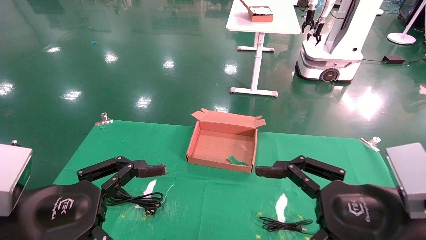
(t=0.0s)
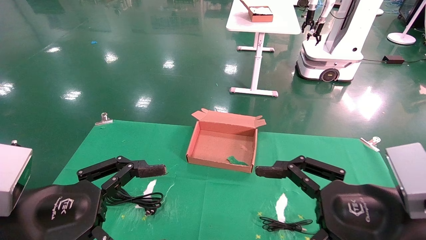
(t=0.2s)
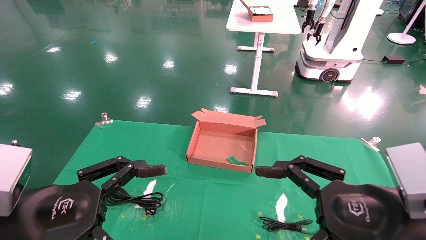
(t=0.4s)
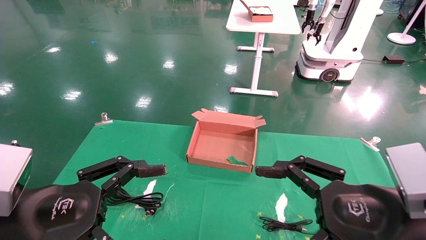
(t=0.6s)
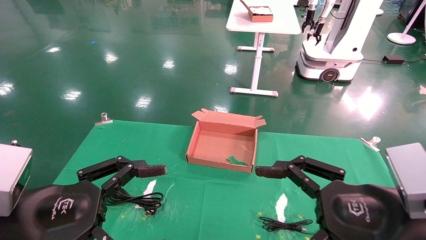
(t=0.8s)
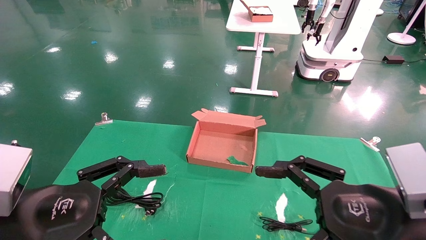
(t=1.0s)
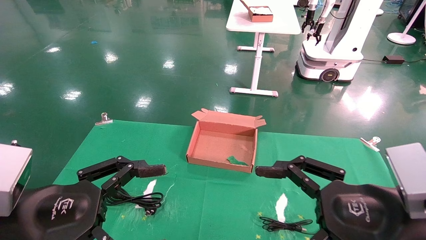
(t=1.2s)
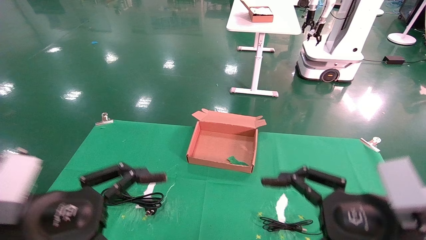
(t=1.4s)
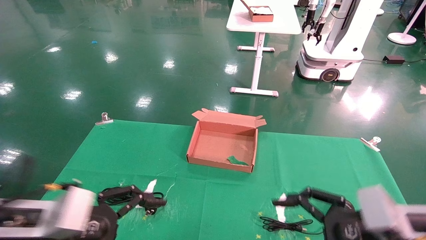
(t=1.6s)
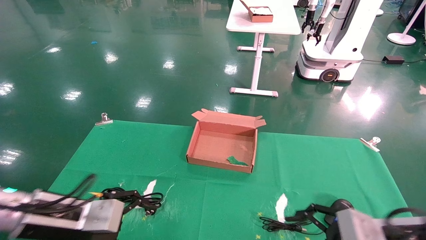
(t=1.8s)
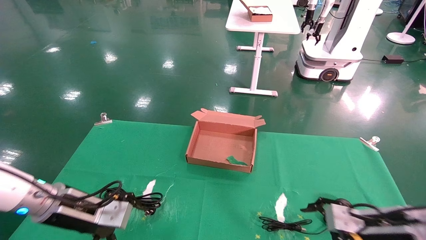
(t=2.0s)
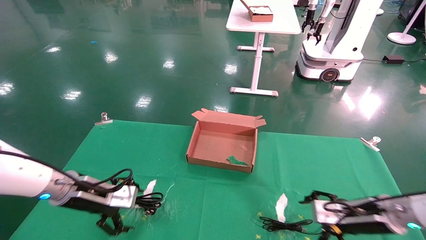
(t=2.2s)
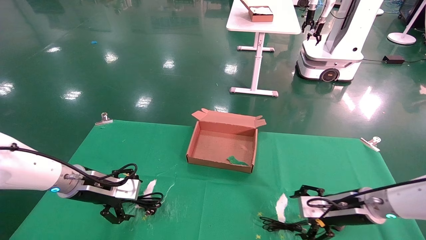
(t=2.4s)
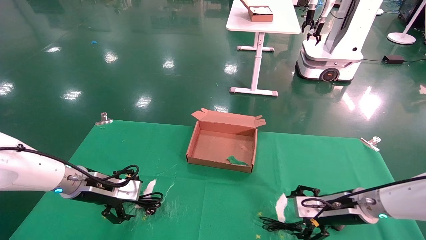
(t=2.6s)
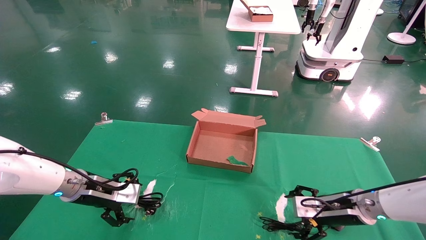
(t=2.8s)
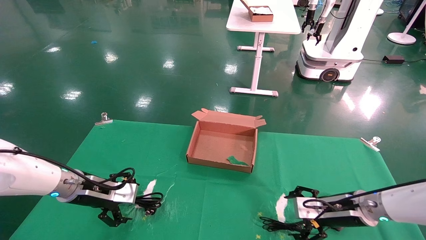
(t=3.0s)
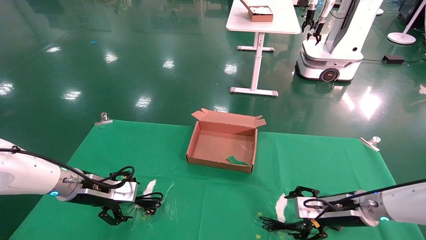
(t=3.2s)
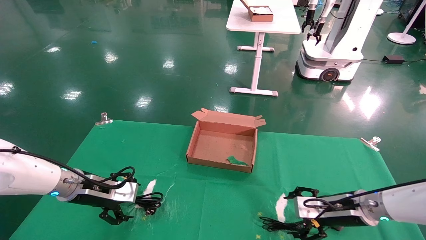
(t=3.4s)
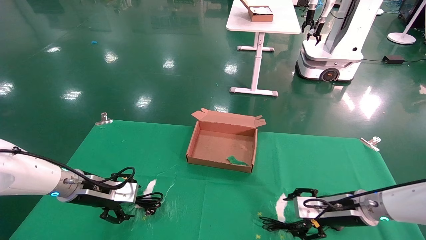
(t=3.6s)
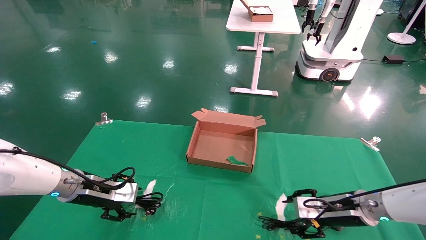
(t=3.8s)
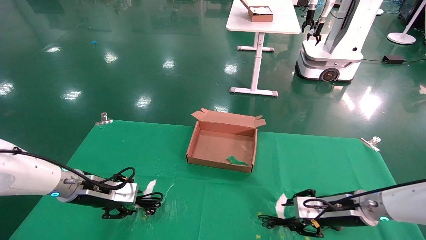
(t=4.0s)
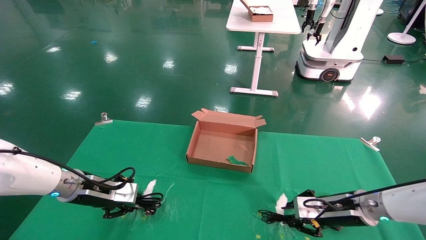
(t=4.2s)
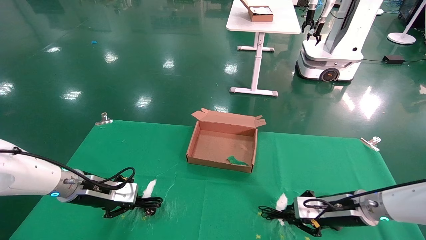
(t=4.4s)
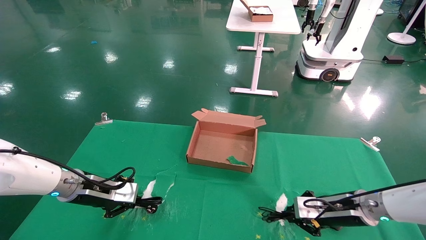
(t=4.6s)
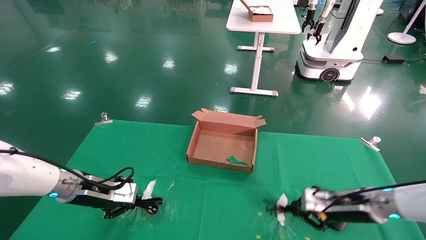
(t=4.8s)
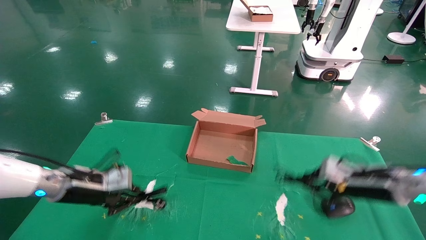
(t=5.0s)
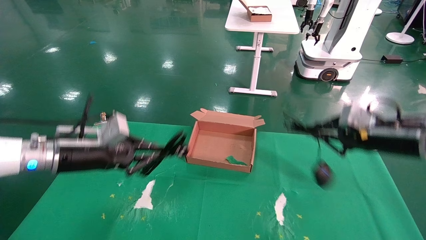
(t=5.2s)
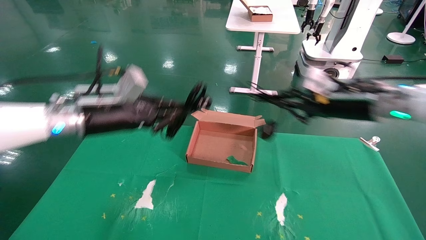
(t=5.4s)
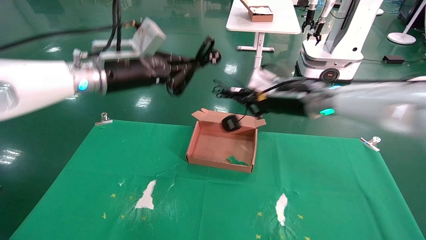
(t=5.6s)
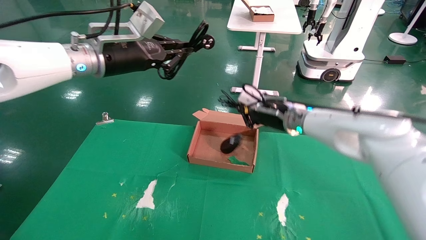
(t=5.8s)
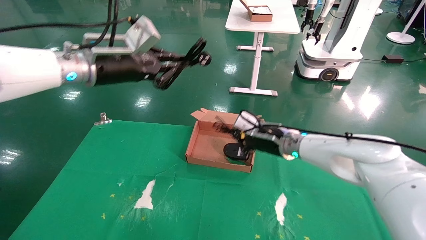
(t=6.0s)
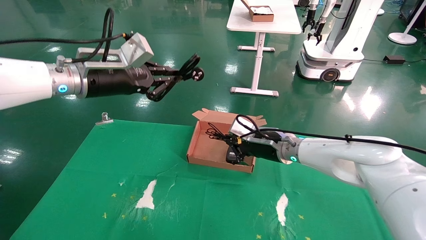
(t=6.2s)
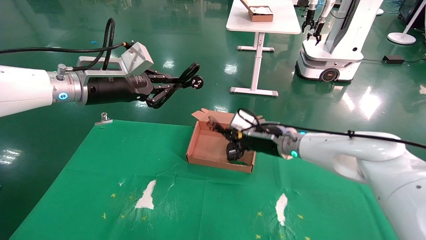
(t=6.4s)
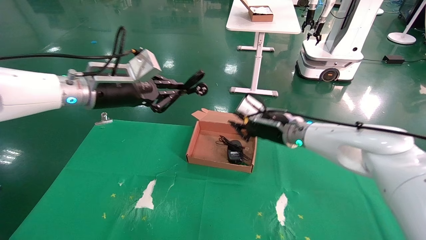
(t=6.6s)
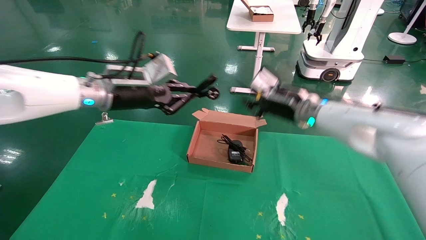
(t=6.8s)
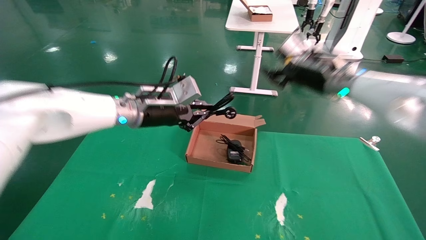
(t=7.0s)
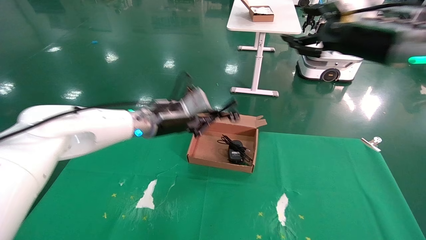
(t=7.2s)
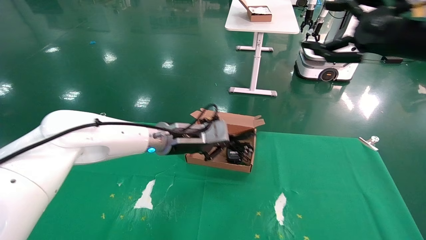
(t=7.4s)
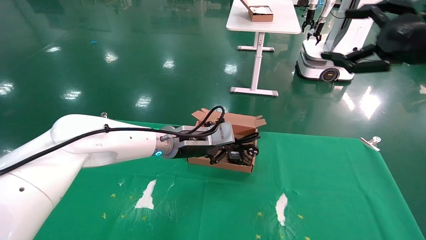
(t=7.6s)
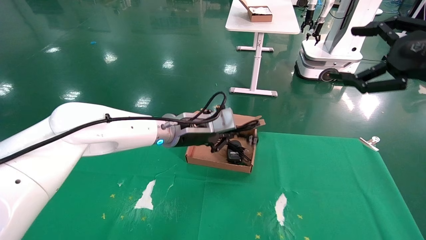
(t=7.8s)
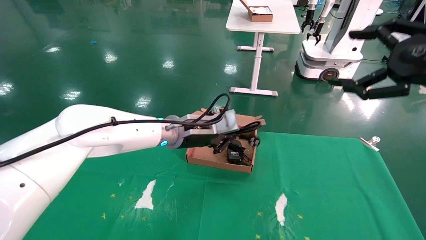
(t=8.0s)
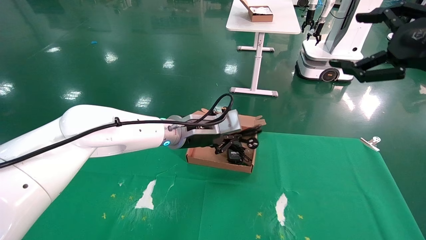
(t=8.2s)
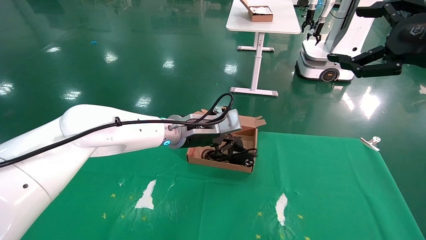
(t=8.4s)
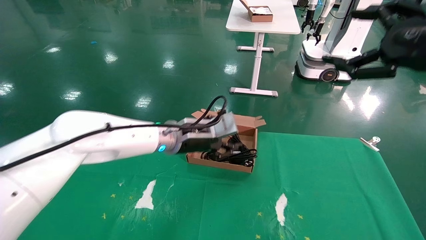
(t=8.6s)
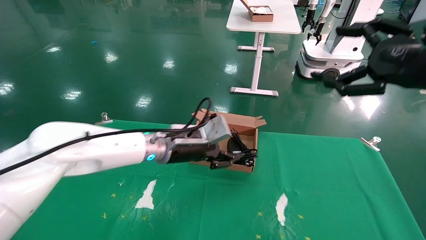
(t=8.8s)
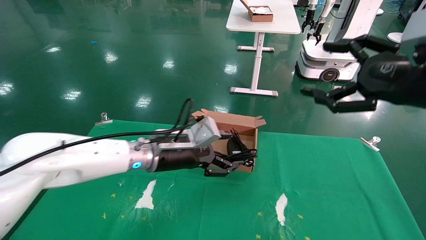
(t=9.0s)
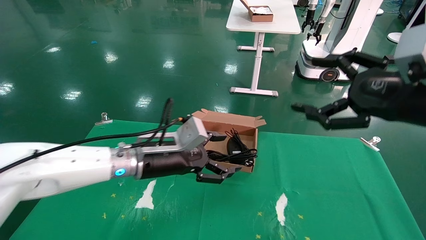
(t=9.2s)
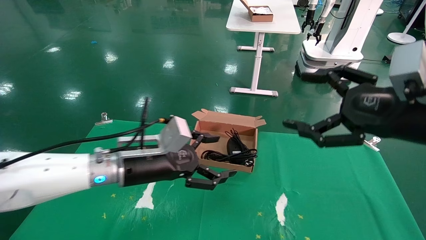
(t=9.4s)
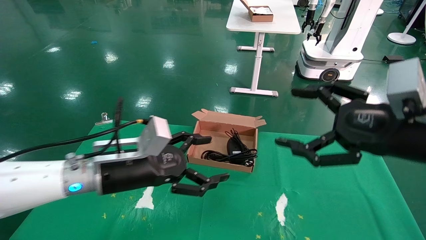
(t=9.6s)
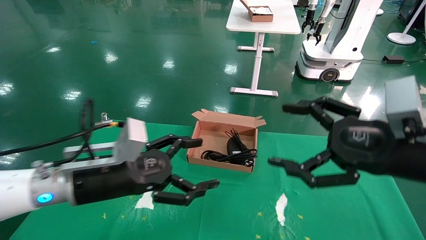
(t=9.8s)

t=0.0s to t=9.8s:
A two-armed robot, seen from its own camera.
Step, t=1.6s to t=4.6s: Grab and lift both the mouse and power cord from the accessory packaging area at the same time.
Step, t=4.8s to t=8.6s: Place the mouse and power cord into the box.
t=0.0s to t=1.4s: The grippers make only small movements.
t=1.4s to t=2.8s: The left gripper goes roughly 20 cm forward, while the right gripper moves forward and downward, some 25 cm.
t=2.8s to t=4.2s: The right gripper closes up. The left gripper closes its fingers.
t=4.2s to t=5.6s: The right gripper heads upward and to the left, covering approximately 20 cm, and closes its fingers; the left gripper moves upward and to the right, some 25 cm, and closes up.
t=5.6s to t=7.0s: The right gripper moves upward, some 10 cm, and opens; the left gripper travels downward and to the right by about 10 cm.
t=7.0s to t=8.4s: The right gripper shifts approximately 20 cm backward and to the right, and opens its fingers; the left gripper travels to the right and downward by some 10 cm.
t=8.4s to t=9.8s: The right gripper moves downward and to the left, about 15 cm; the left gripper travels backward and to the left by some 20 cm, and opens its fingers.

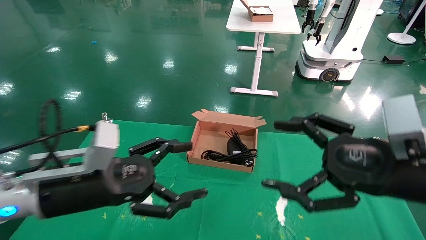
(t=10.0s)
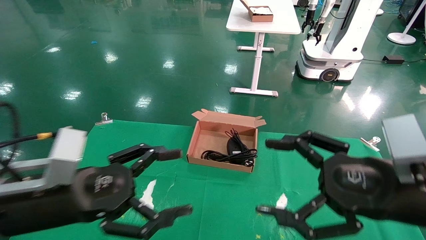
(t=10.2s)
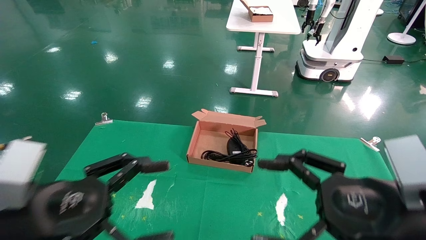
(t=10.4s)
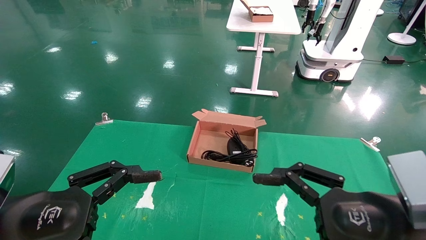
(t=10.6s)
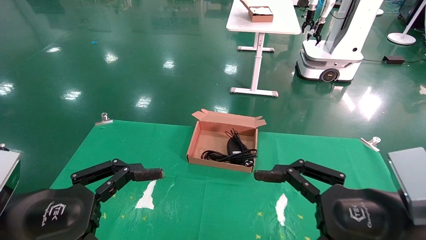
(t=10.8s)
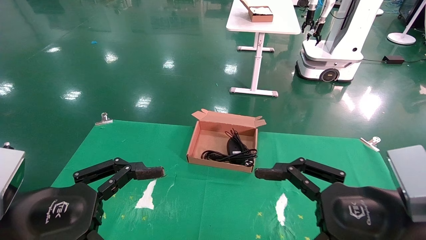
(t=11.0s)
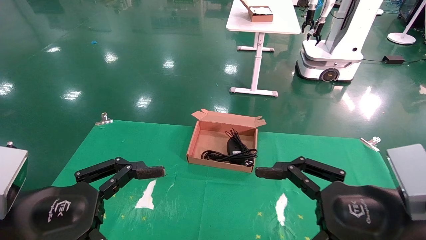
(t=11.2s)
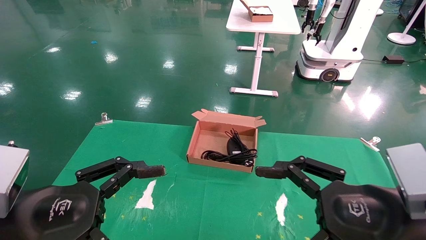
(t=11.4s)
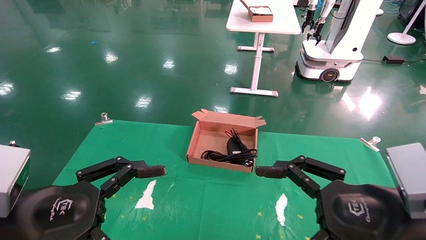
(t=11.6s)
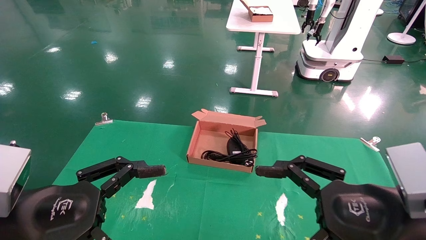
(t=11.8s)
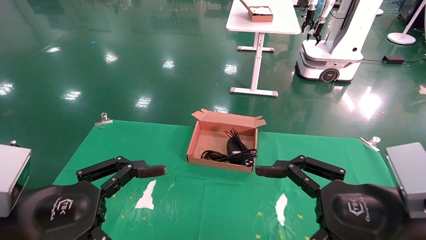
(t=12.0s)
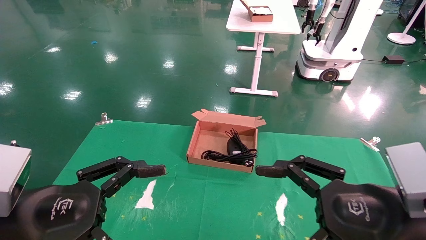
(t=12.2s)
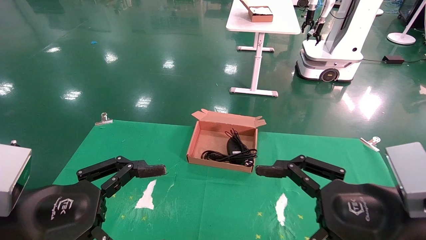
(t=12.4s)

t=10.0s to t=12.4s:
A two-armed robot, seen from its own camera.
t=10.0s to t=11.2s: The right gripper moves some 5 cm. Meanwhile the left gripper heads backward, covering about 10 cm.
t=11.2s to t=12.4s: Both grippers stay about where they are.
